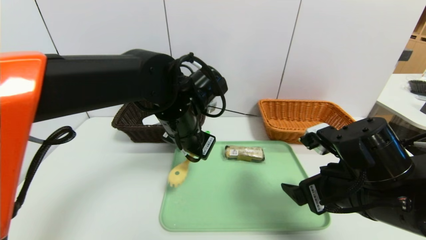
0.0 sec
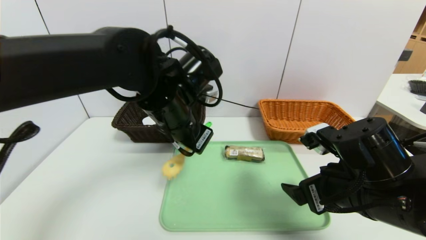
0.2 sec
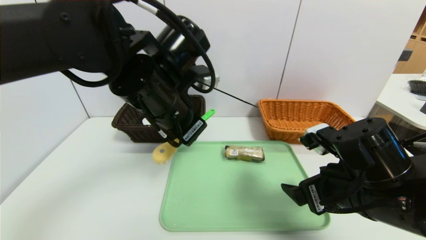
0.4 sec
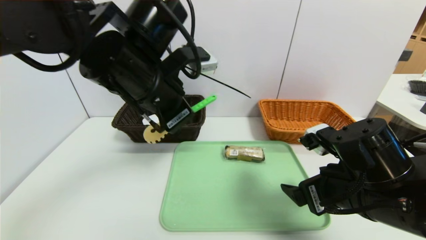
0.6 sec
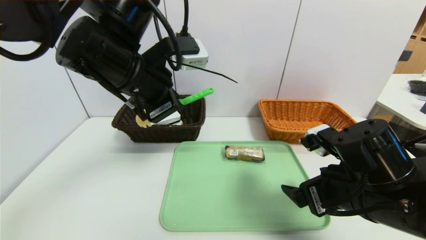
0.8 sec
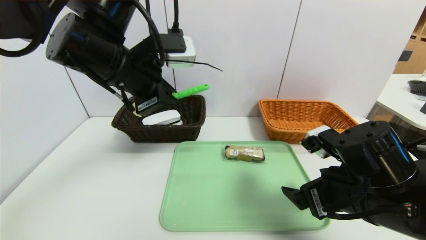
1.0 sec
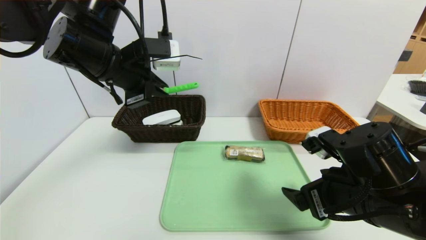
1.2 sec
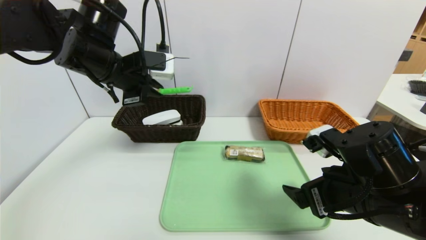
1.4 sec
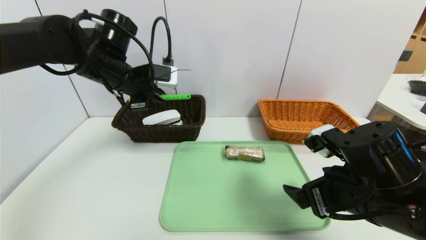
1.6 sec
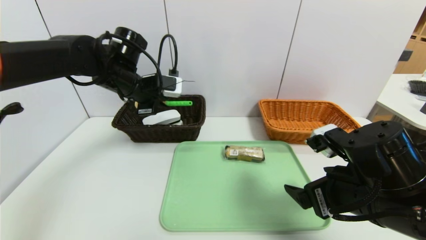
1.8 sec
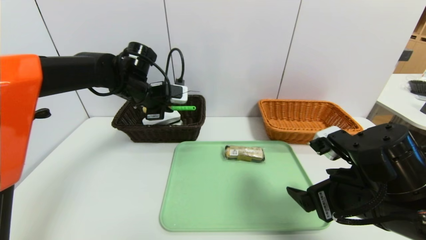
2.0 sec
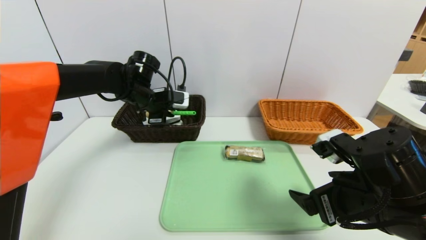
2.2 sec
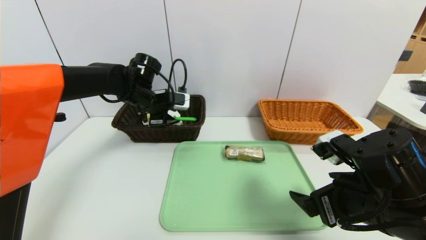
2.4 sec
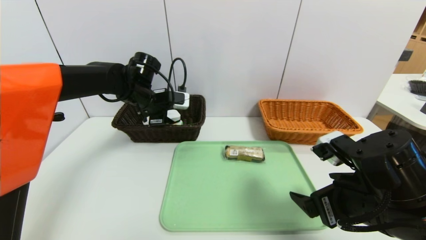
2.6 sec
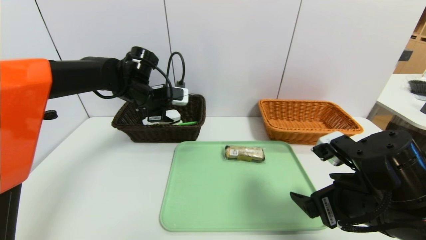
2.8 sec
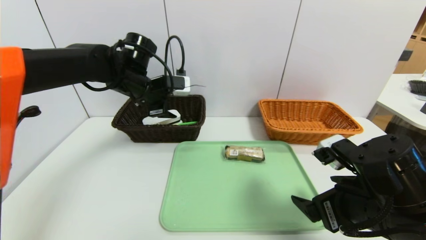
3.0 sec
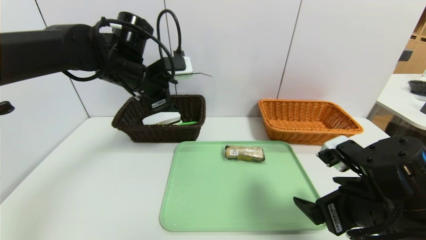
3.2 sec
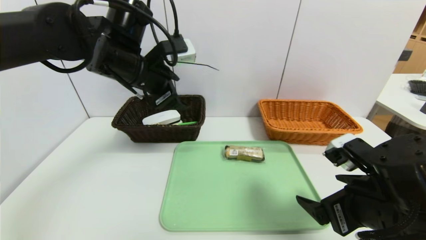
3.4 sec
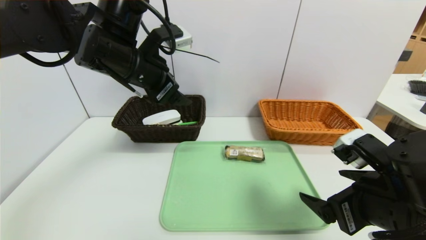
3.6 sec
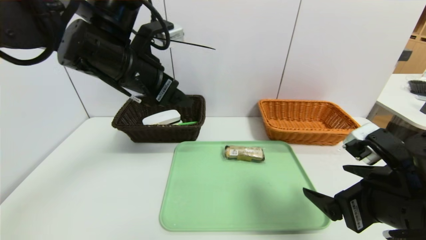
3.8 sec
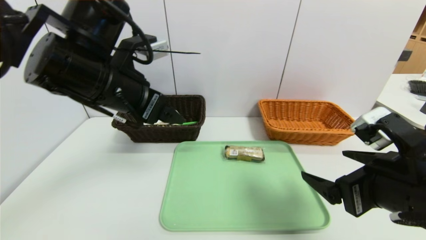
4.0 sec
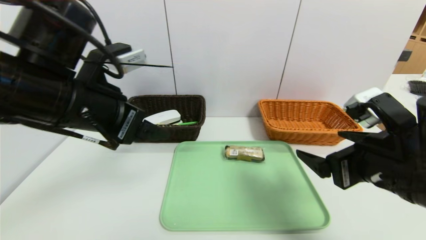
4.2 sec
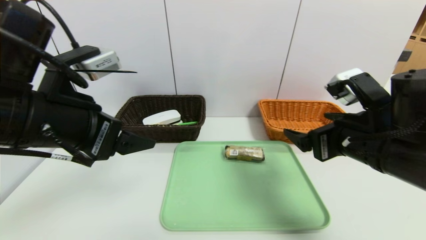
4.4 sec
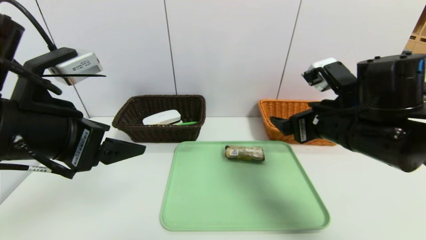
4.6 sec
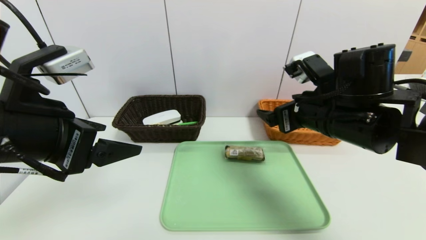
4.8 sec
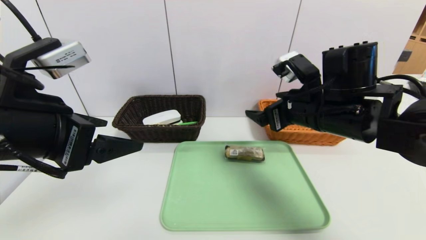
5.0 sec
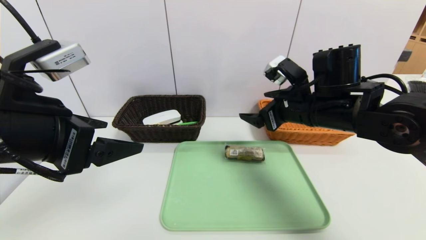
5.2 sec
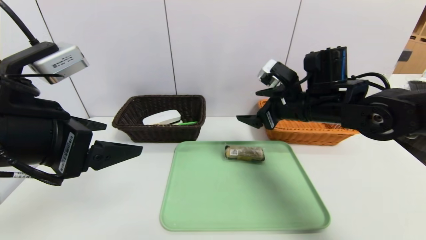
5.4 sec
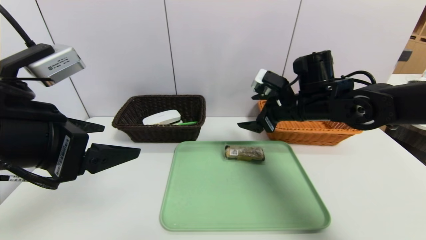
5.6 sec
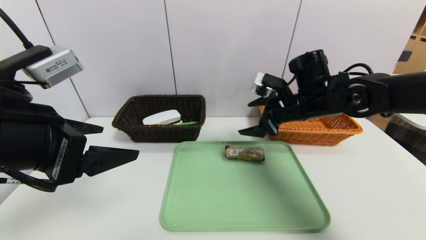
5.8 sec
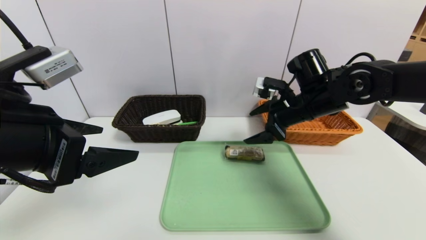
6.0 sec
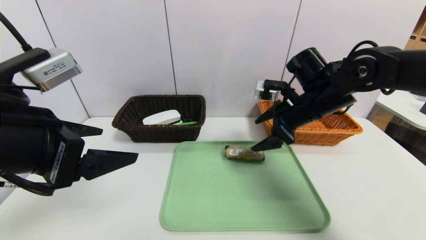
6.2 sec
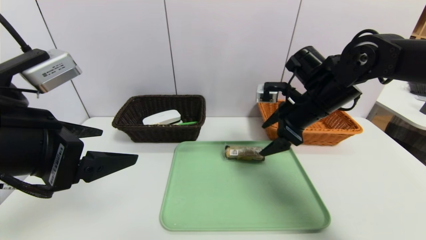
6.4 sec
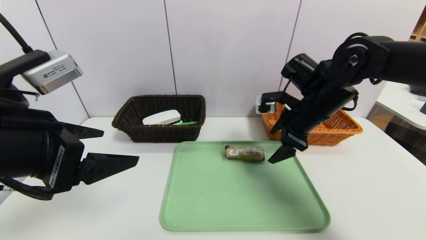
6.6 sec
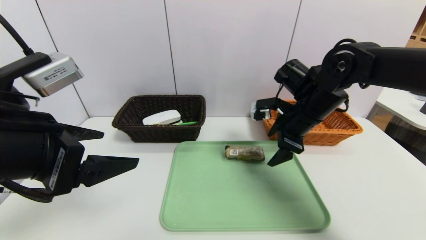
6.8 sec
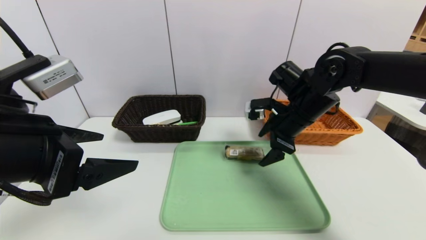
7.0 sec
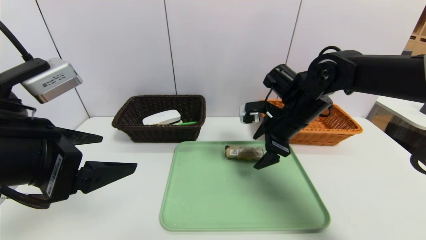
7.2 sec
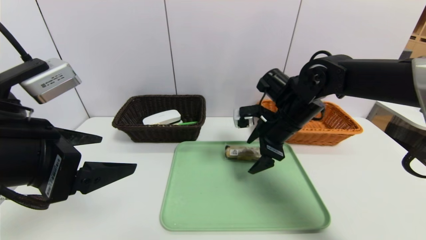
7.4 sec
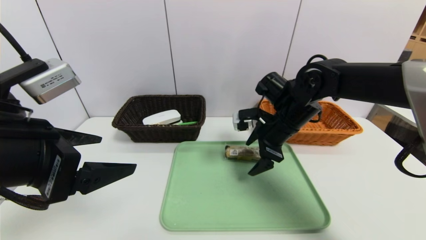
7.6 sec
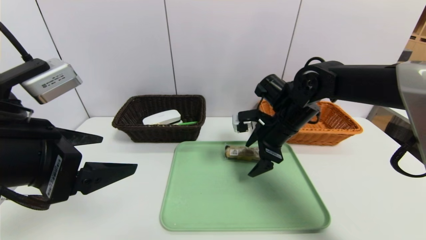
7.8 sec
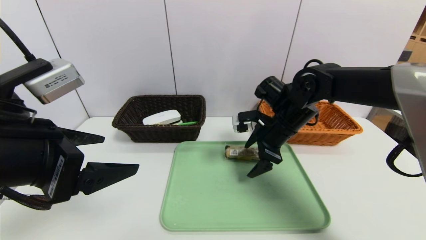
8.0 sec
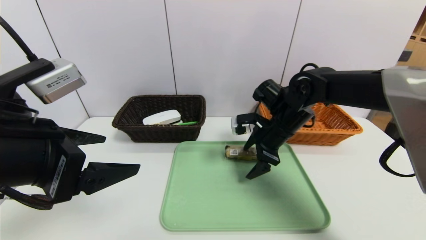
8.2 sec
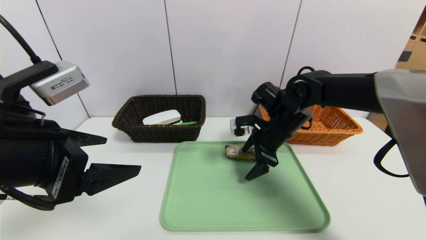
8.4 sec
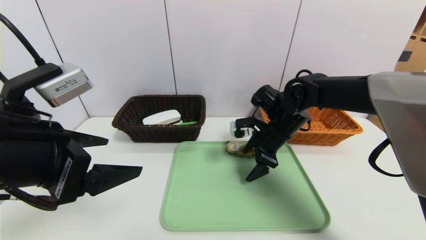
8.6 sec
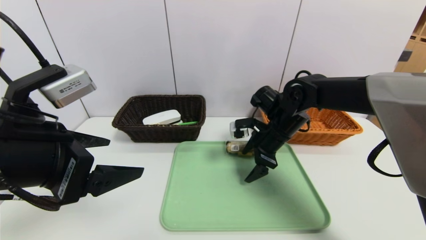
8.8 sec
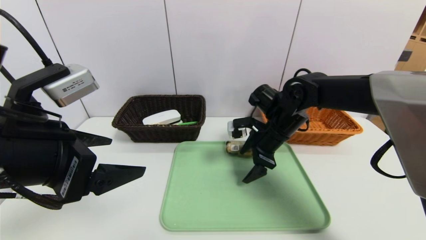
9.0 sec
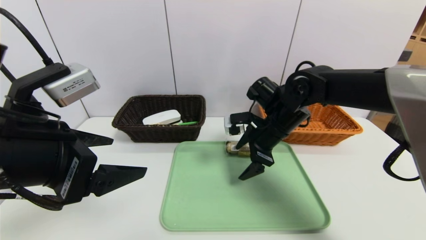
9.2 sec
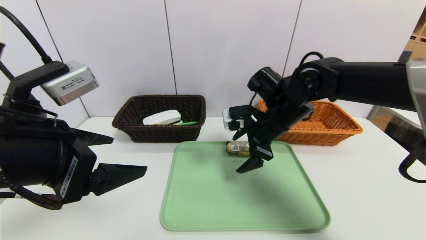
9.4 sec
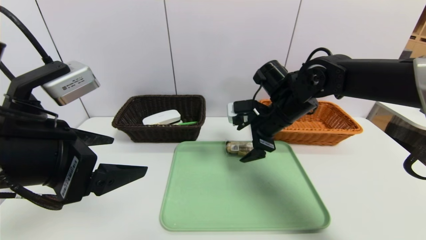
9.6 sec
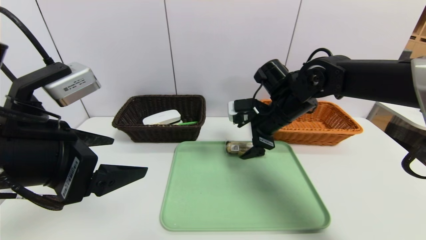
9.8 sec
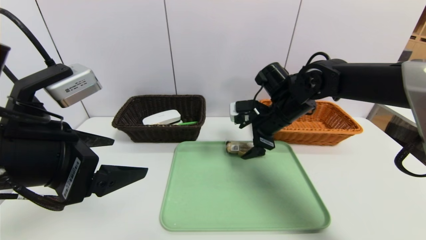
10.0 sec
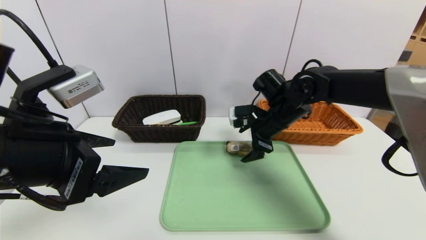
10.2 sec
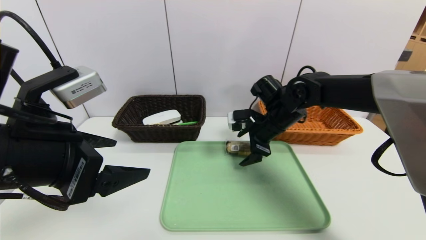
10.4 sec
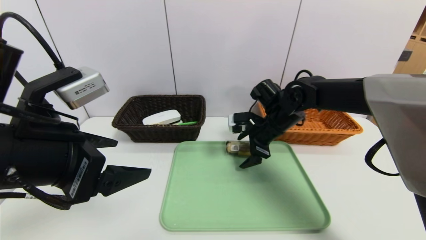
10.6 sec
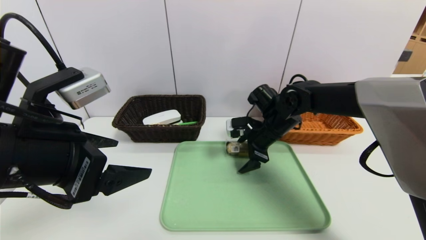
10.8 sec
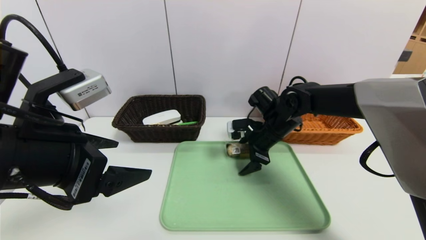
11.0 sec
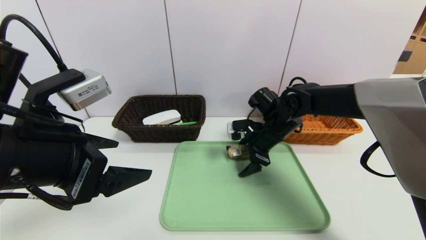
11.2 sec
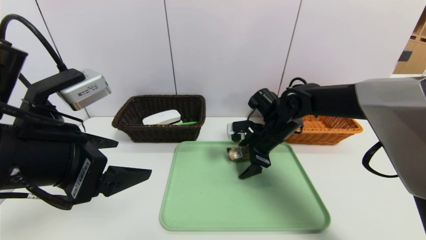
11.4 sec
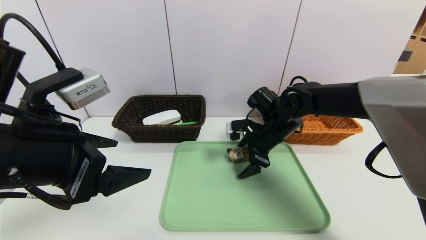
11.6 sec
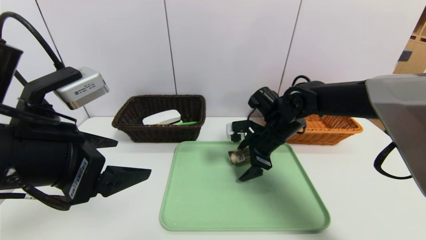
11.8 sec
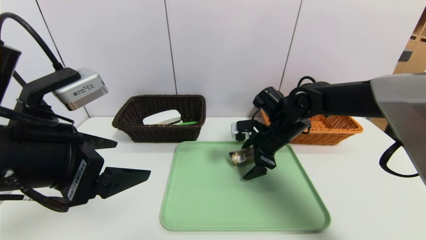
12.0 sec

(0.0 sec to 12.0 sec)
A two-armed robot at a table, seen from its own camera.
Task of the whole recording: place the food in the right basket with the right gripper, and place the non food items in the left basket with the left gripper.
0.0 sec - 1.6 sec: The left gripper shifts approximately 15 cm to the left, forward and upward.
1.6 sec - 3.0 sec: The left gripper opens its fingers.
3.0 sec - 4.4 sec: The right gripper heads upward, covering about 5 cm. Meanwhile the left gripper travels backward by approximately 20 cm.
4.4 sec - 6.0 sec: The right gripper heads forward, covering roughly 15 cm.
7.6 sec - 10.4 sec: There are only small adjustments of the grippers.
10.4 sec - 12.0 sec: The grippers make only small movements.

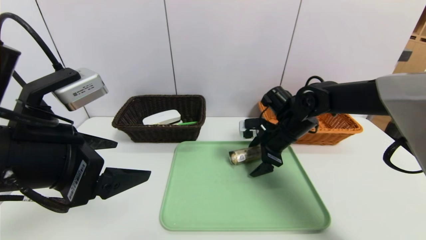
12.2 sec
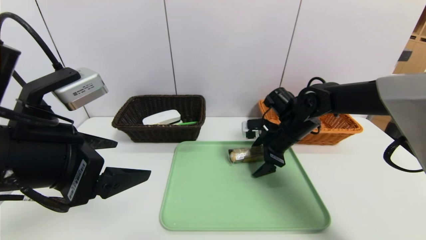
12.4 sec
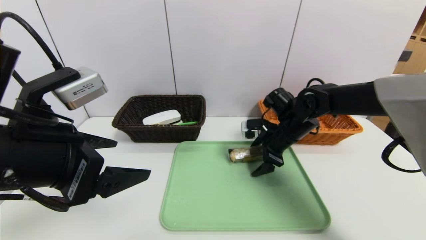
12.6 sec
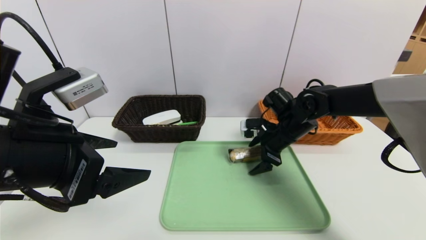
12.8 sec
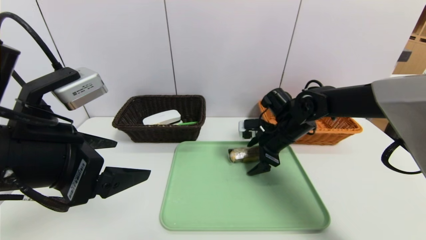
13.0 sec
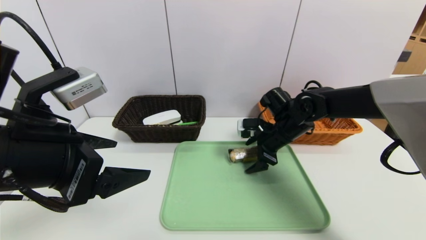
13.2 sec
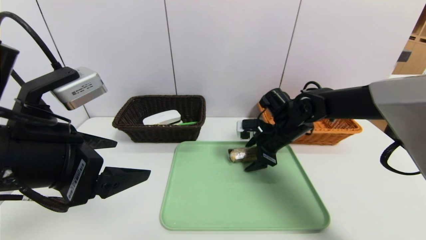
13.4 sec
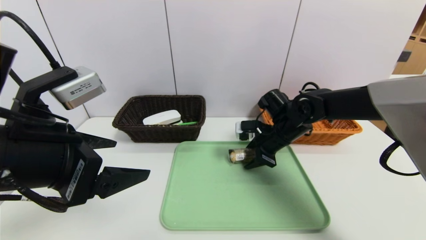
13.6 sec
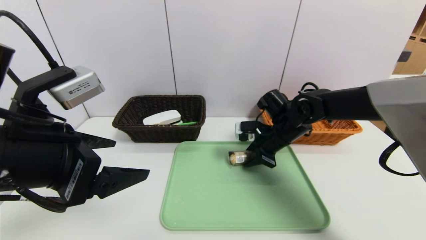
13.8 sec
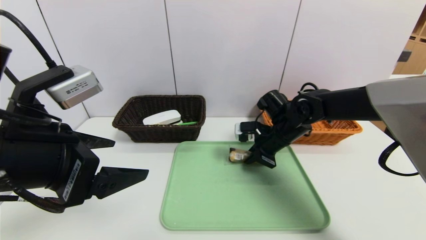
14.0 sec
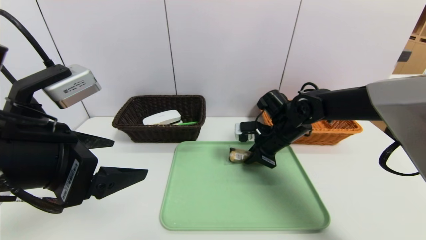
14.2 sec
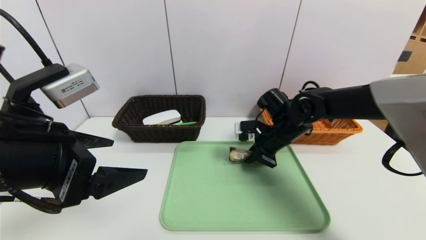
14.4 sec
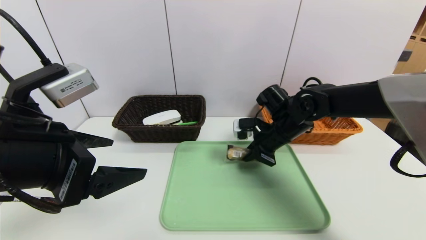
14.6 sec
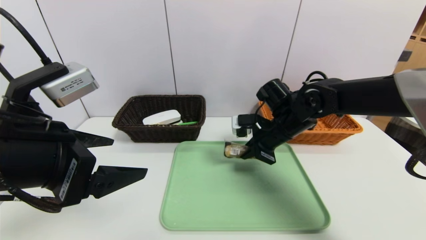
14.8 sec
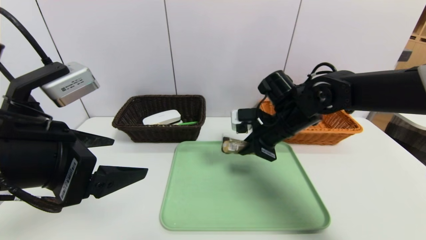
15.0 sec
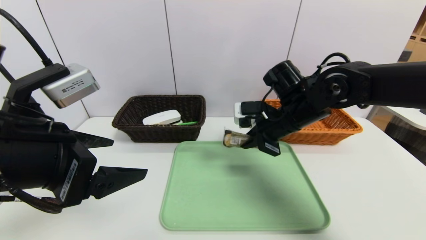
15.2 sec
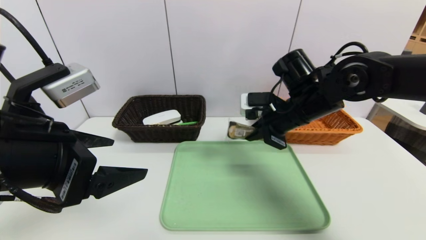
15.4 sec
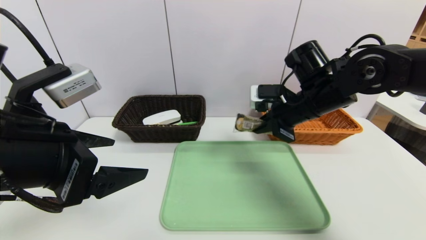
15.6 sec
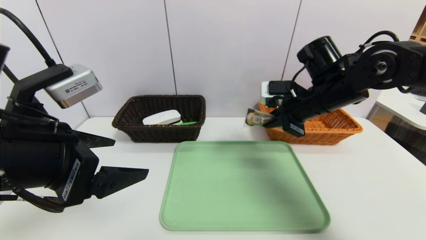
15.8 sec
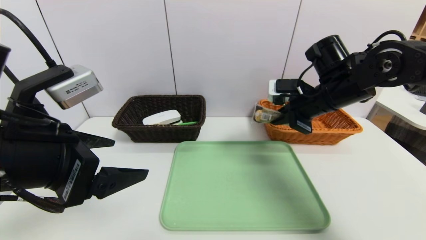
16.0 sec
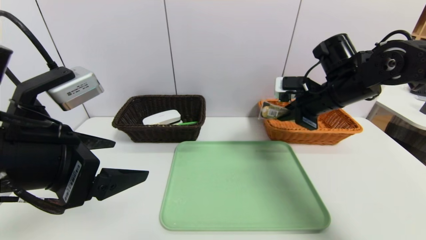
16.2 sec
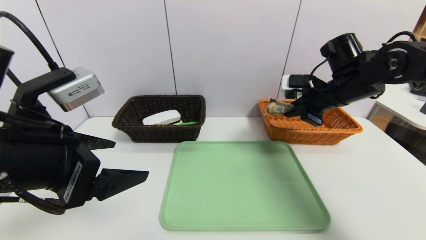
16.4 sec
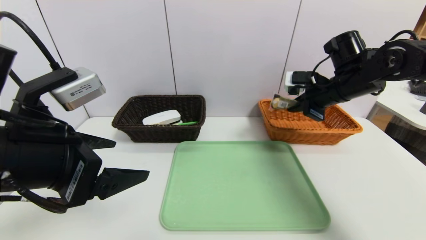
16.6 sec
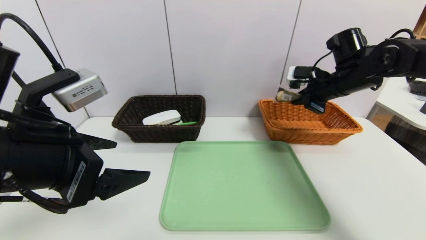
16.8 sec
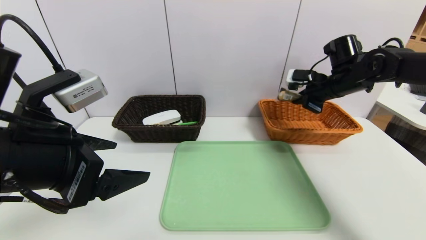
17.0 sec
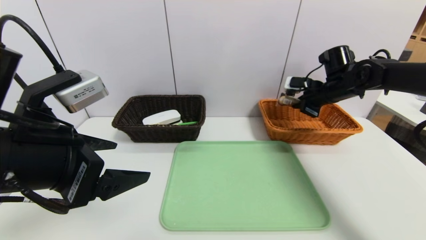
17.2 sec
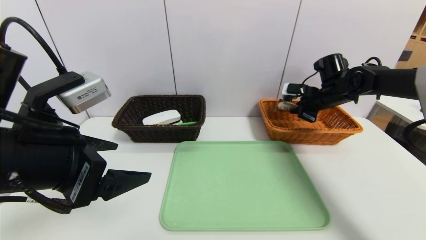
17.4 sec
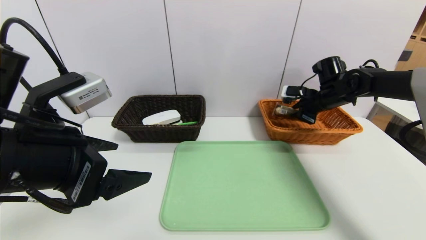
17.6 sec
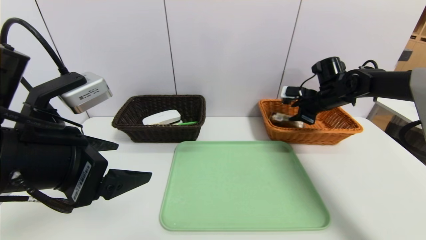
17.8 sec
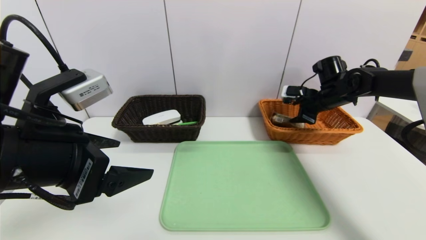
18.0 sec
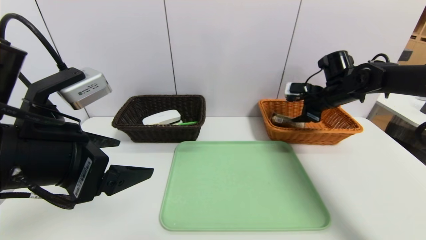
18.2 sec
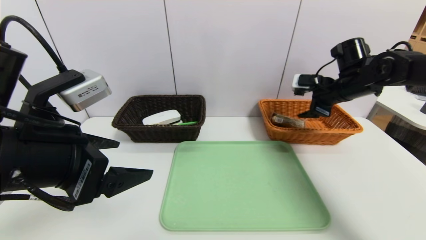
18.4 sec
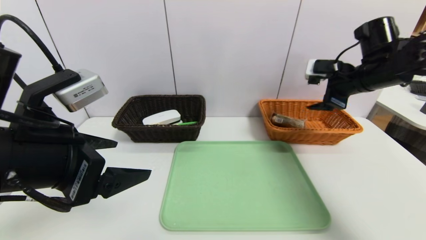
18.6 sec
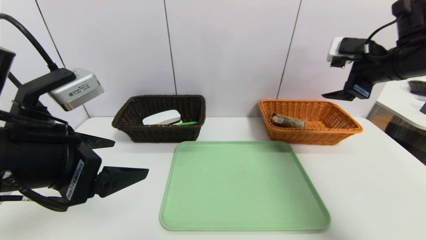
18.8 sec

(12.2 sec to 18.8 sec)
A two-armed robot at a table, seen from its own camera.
Task of the whole recording: place the food in the right basket with the right gripper, and place the non food items in the left basket with the left gripper.
Step, 12.2 sec - 17.8 sec: Grasp the chocolate and put it in the right basket.
12.2 sec - 13.8 sec: The right gripper closes its fingers.
13.8 sec - 15.4 sec: The right gripper is displaced upward and backward by approximately 10 cm.
15.4 sec - 17.2 sec: The right gripper moves to the right and forward, approximately 20 cm.
17.2 sec - 18.8 sec: The right gripper shifts approximately 15 cm backward and upward, and opens.
